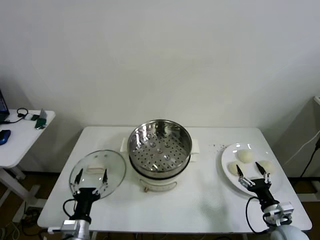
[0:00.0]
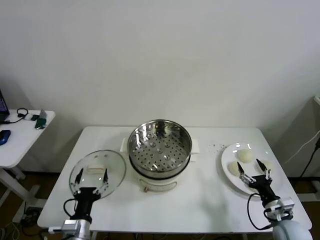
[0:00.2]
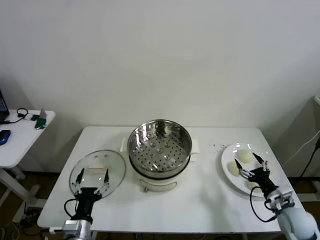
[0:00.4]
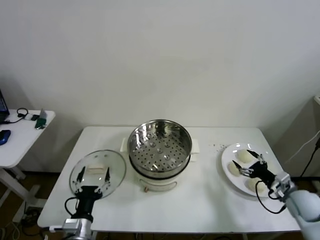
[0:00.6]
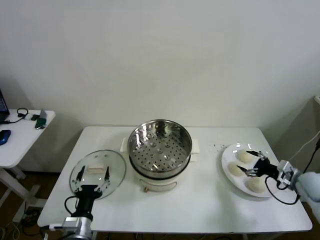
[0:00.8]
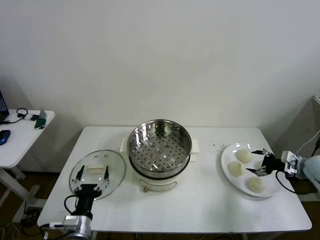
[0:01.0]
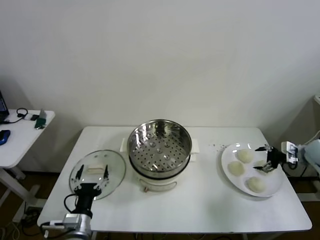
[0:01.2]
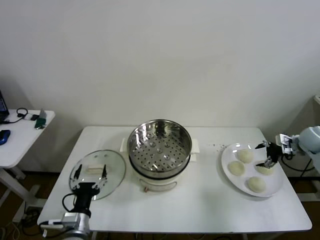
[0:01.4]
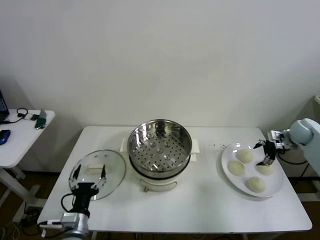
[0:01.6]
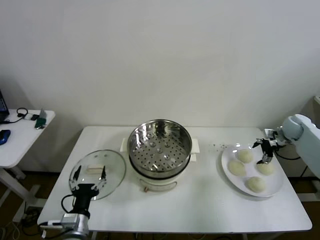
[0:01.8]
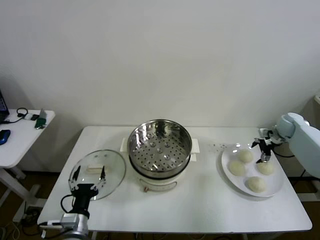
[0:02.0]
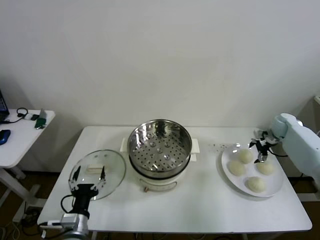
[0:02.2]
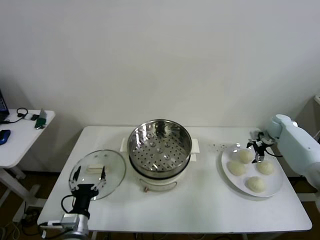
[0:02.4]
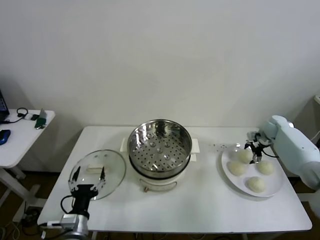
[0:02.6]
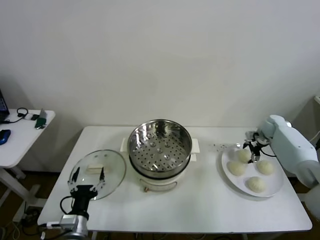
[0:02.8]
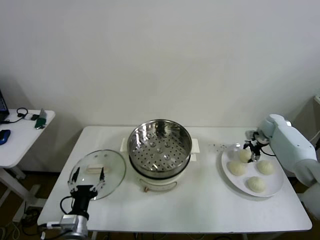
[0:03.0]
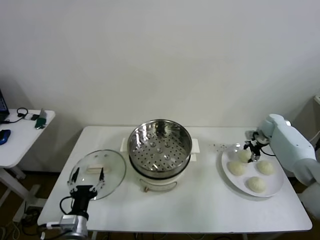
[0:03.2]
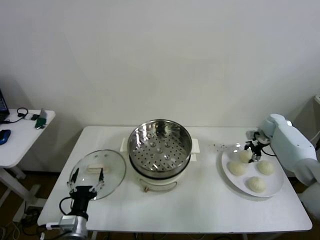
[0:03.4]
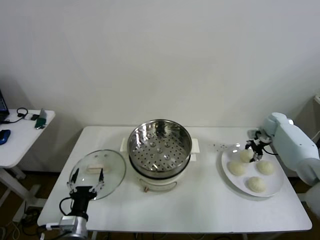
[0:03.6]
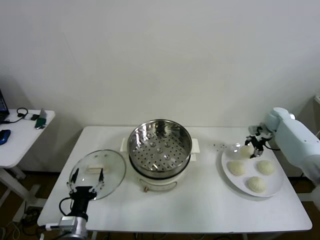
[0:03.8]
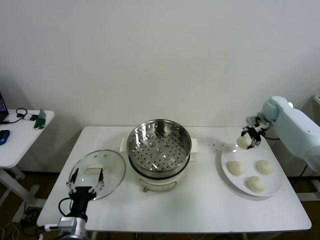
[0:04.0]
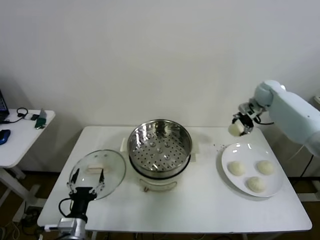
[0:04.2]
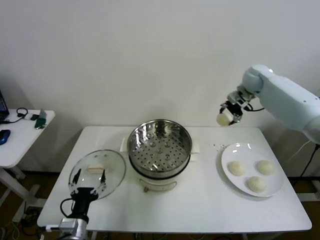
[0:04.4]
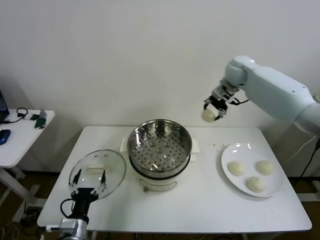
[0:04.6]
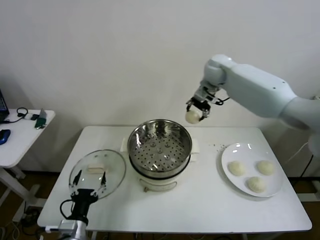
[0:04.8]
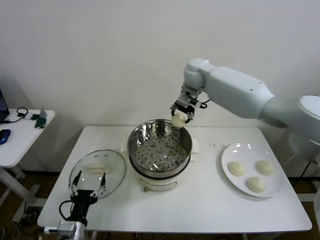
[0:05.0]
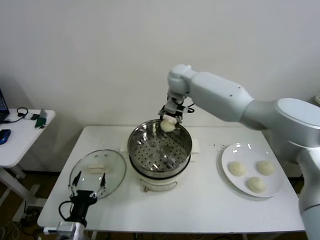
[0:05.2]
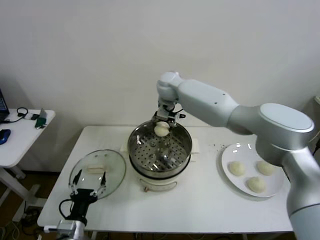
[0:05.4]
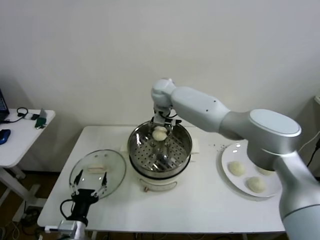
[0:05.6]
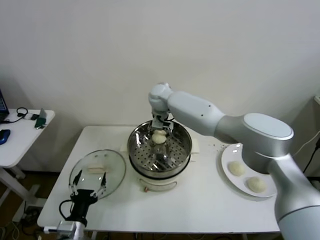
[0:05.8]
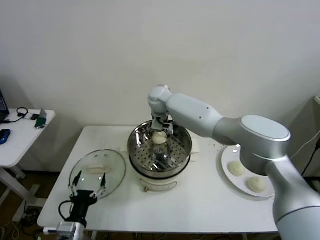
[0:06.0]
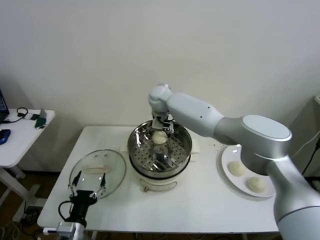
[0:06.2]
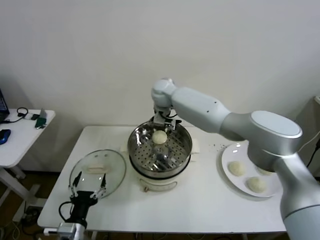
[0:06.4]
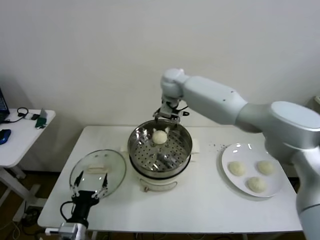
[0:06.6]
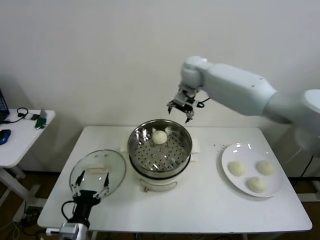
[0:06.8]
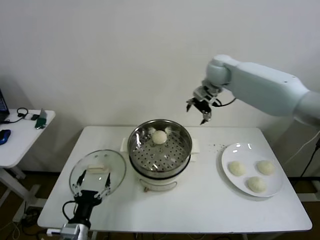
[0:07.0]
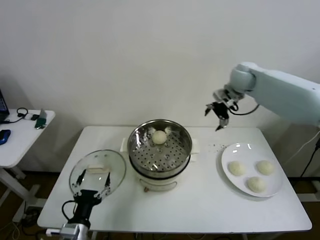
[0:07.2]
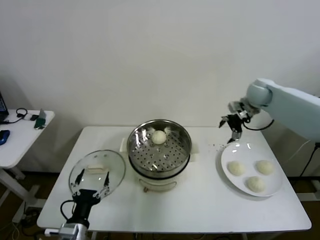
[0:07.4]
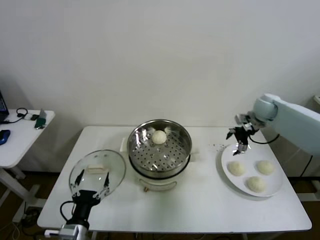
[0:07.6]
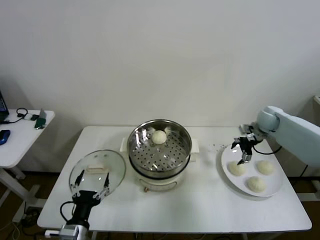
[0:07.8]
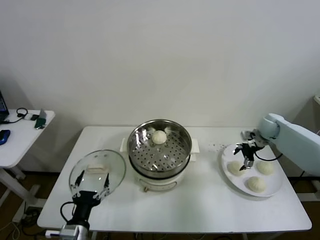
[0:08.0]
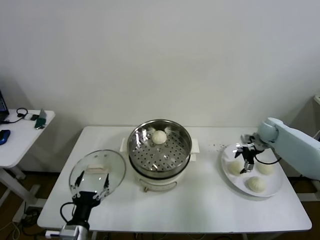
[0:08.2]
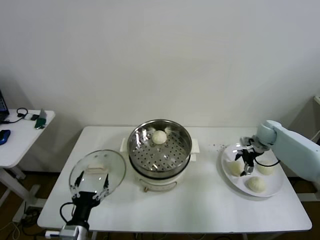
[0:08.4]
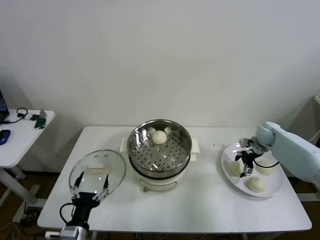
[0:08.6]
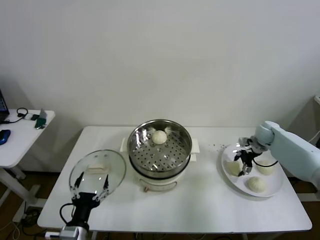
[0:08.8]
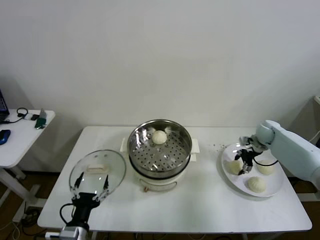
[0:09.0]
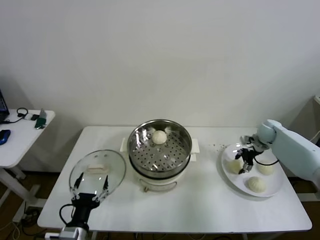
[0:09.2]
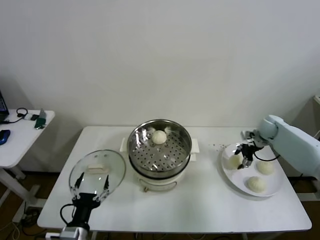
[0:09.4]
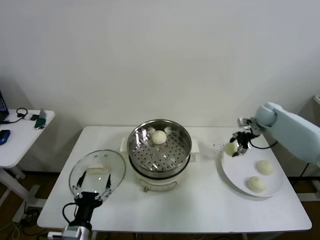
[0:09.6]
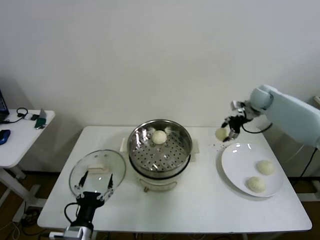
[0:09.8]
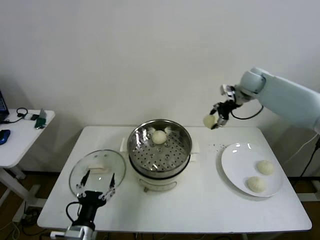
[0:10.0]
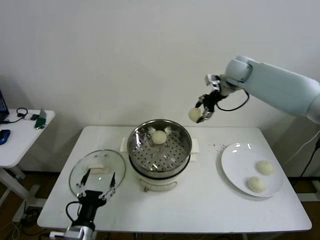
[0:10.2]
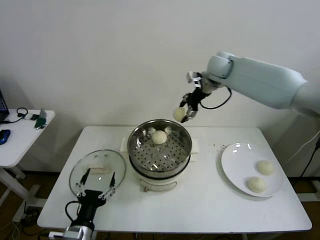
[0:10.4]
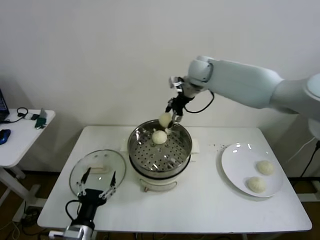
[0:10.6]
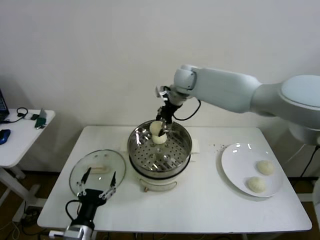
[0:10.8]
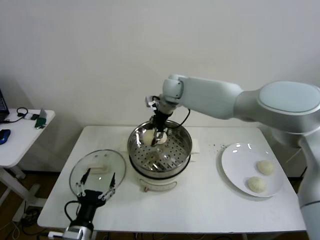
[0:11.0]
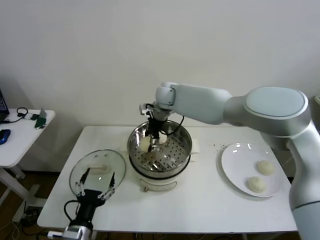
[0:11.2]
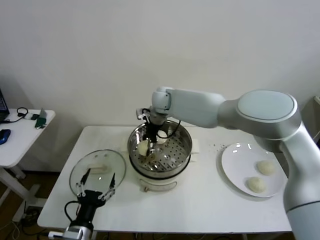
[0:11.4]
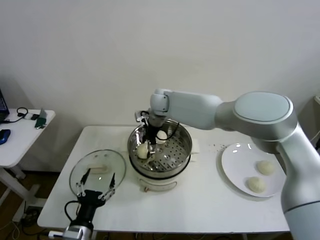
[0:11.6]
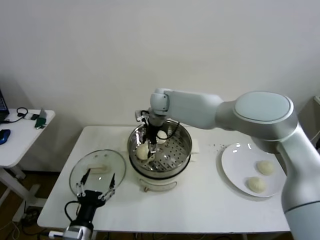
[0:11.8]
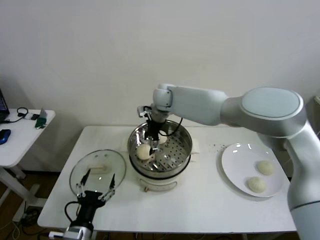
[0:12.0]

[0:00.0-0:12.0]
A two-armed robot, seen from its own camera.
Step, 0:00.0 to 0:03.2: Grasp the baozi in the plate with right gripper.
Step, 0:03.4 to 0:06.4: Place the baozi on the steamer with right gripper.
Step, 0:06.6 to 0:08.8: Grasp the baozi in the plate with right gripper.
Step, 0:09.2 to 0:11.8: Place the baozi on the steamer with right gripper.
0:01.6 to 0:03.0: The right gripper travels forward and to the left by some 10 cm, and closes its fingers.
0:03.0 to 0:04.4: The right gripper moves upward and to the left, about 30 cm.
0:04.4 to 0:06.0: The right gripper heads to the left, covering approximately 30 cm, and opens.
0:06.0 to 0:07.6: The right gripper is displaced to the right by approximately 40 cm.
0:07.6 to 0:09.0: The right gripper is displaced downward by roughly 10 cm, and closes its fingers.
0:09.0 to 0:10.4: The right gripper goes some 35 cm to the left and upward.
0:10.4 to 0:12.0: The right gripper travels to the left and downward by some 20 cm, and opens up.

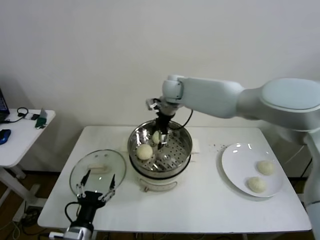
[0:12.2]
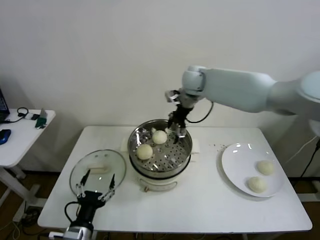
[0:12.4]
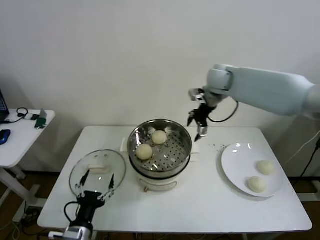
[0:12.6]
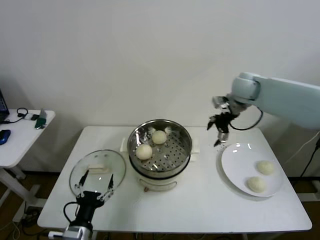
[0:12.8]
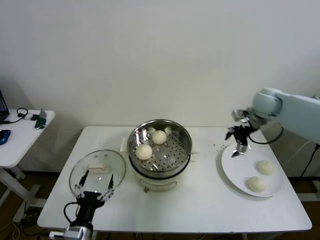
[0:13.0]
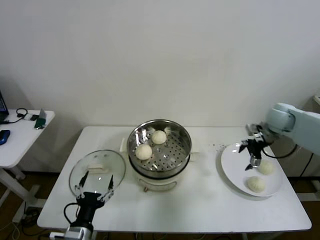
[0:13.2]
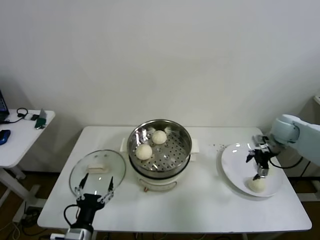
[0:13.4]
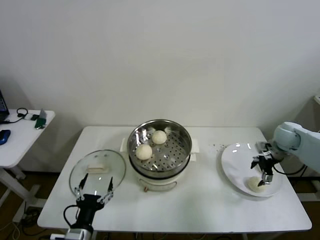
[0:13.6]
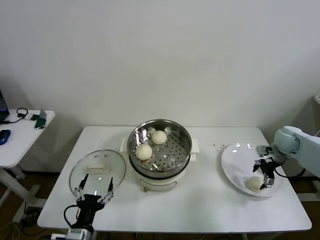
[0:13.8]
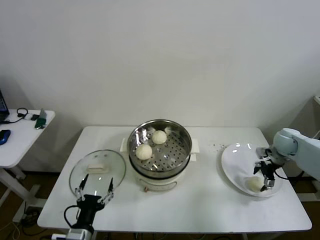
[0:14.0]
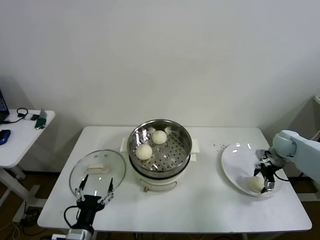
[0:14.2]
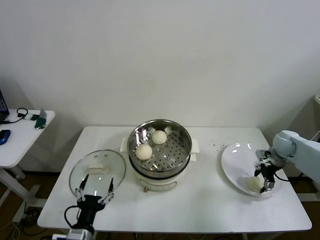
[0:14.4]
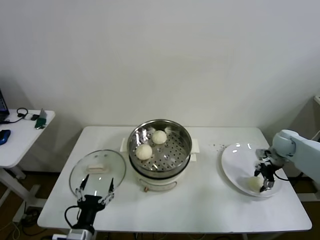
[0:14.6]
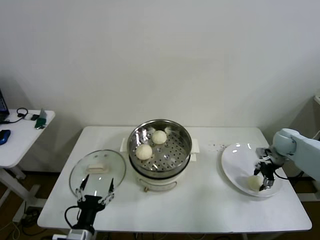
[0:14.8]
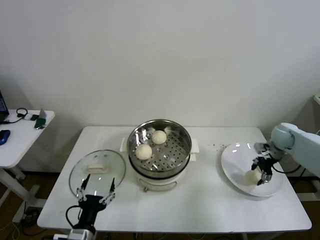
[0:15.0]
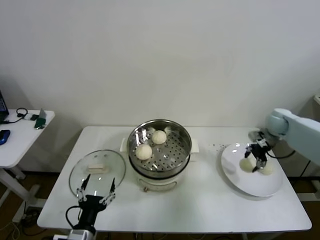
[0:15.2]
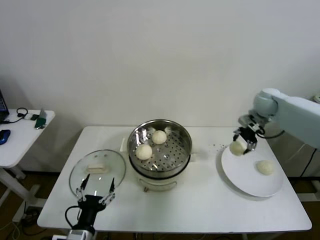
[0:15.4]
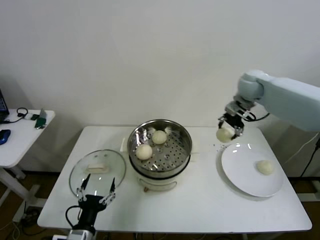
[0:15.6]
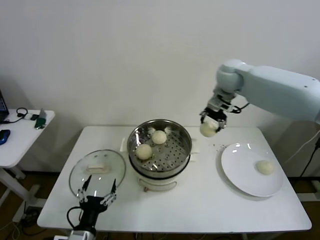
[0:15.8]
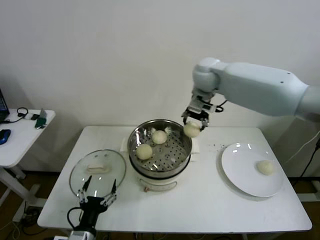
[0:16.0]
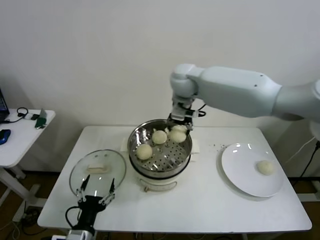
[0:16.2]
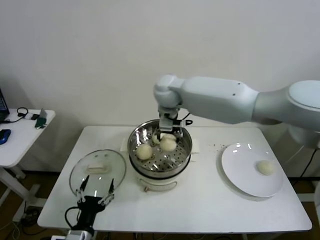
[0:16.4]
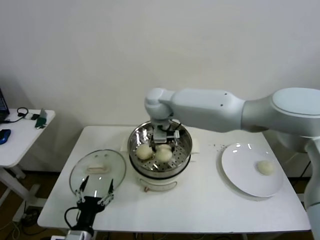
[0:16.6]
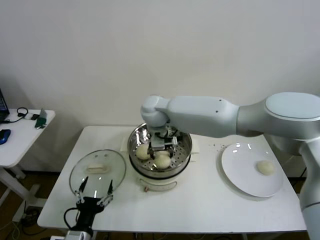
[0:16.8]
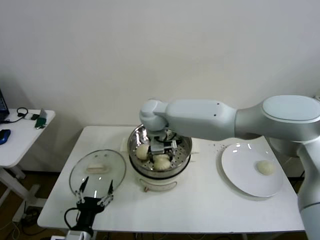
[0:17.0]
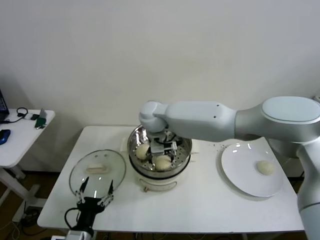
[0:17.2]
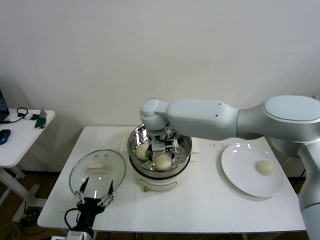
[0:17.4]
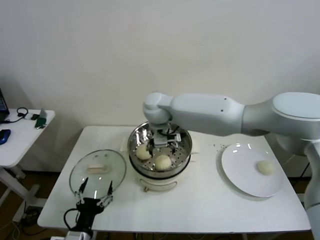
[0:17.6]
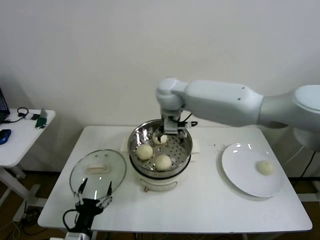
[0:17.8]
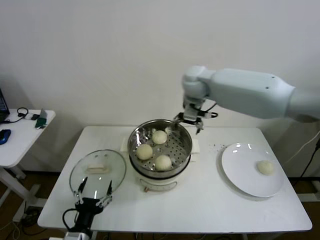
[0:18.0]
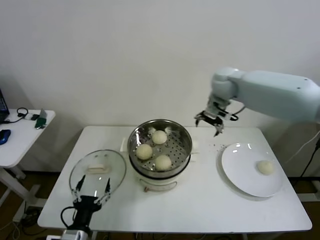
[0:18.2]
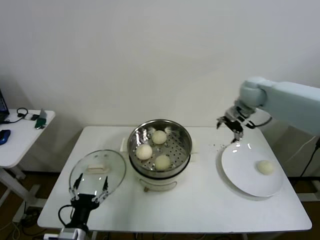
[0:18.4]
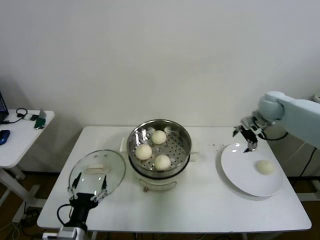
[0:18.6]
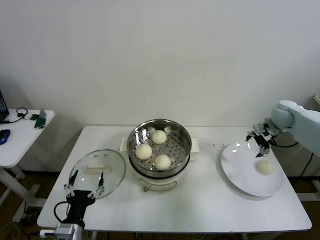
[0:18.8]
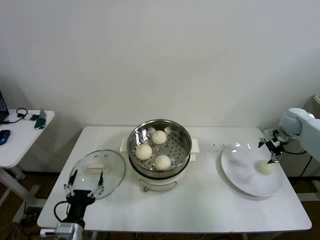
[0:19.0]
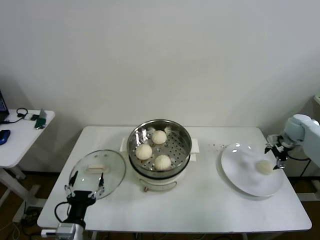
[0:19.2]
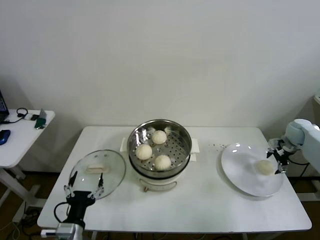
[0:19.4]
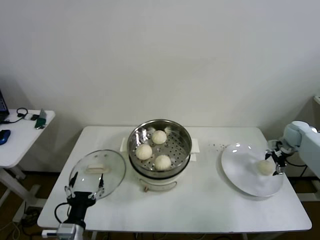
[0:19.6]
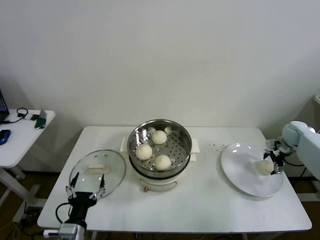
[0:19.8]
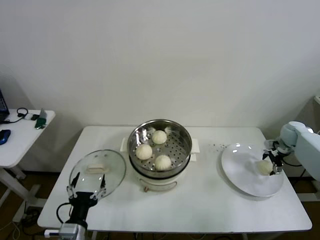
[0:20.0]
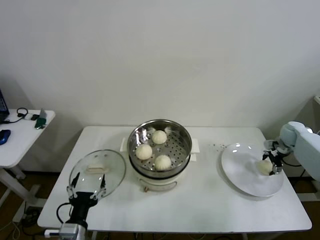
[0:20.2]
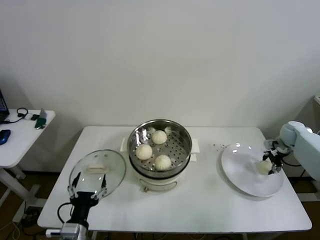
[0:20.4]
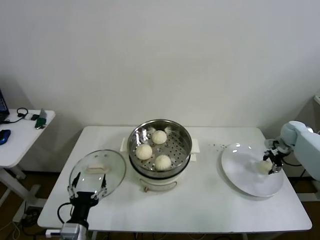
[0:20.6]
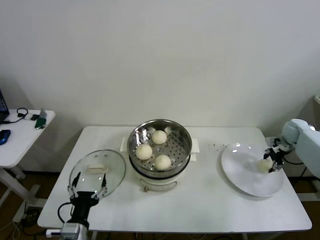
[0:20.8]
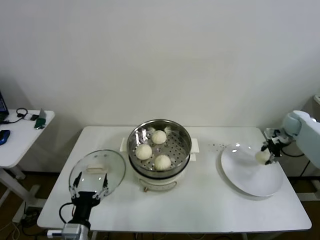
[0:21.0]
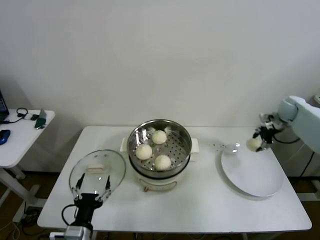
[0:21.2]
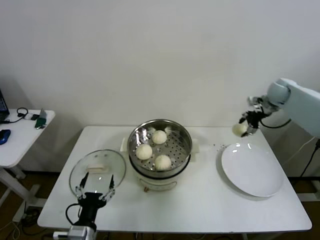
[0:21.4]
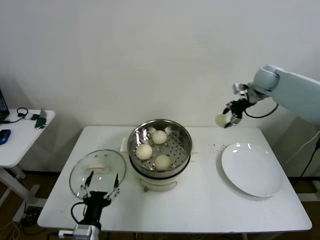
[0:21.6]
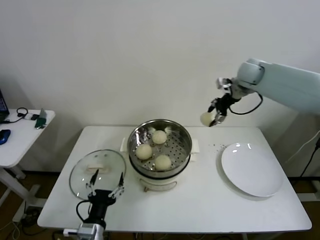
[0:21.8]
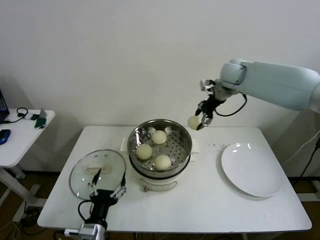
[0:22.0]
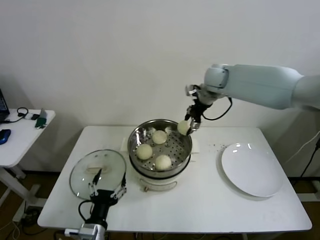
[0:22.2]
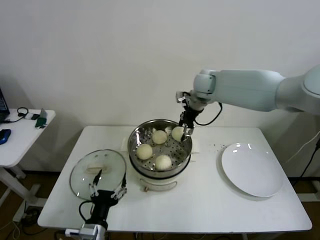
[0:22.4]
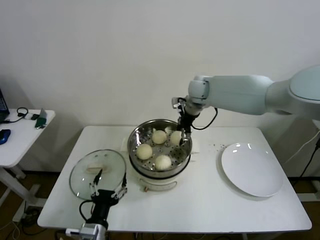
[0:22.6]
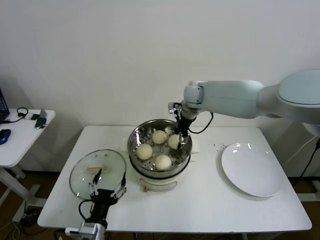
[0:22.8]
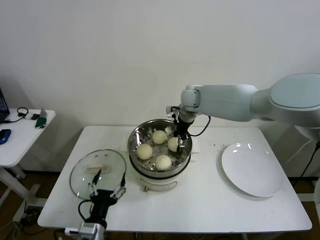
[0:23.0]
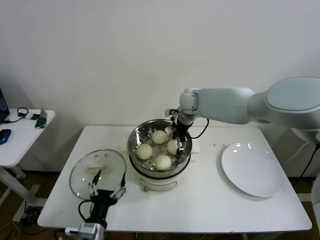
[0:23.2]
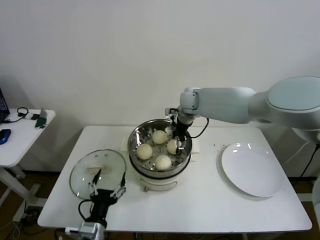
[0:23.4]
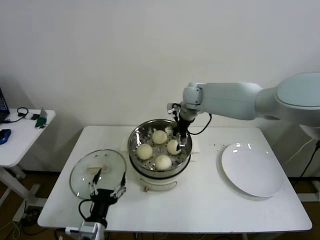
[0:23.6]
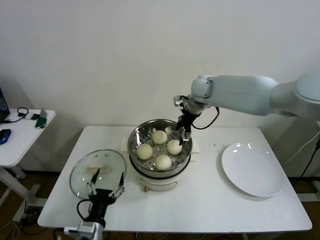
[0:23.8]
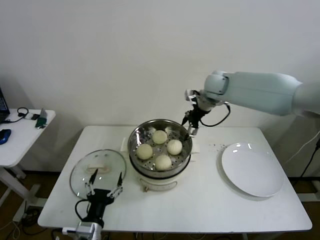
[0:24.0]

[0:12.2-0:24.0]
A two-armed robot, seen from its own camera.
Step, 0:12.2 to 0:14.6: Grasp the baozi in the plate with right gripper.
Step, 0:14.8 to 0:17.4: Place the baozi on the steamer with right gripper.
Step, 0:17.6 to 0:20.4: Grasp the baozi in the plate with right gripper.
Step, 0:20.6 to 0:23.6: Place the baozi on the steamer with right gripper.
0:12.2 to 0:13.6: The right gripper is displaced to the right by about 40 cm.
0:13.6 to 0:15.2: The right gripper heads forward, covering approximately 5 cm, and closes up.
0:15.2 to 0:16.6: The right gripper travels to the left by some 40 cm.
0:16.6 to 0:18.2: The right gripper goes roughly 25 cm to the right, and opens.
0:18.2 to 0:19.6: The right gripper travels to the right and downward by about 35 cm.
0:19.6 to 0:21.0: The right gripper closes.
0:21.0 to 0:22.6: The right gripper shifts roughly 40 cm to the left.
0:22.6 to 0:24.0: The right gripper is displaced to the right by roughly 5 cm, and opens its fingers.
